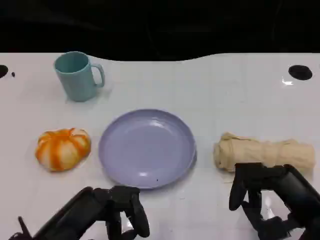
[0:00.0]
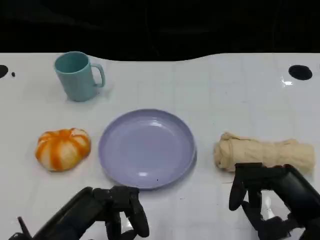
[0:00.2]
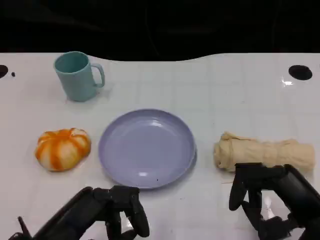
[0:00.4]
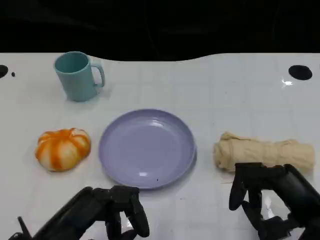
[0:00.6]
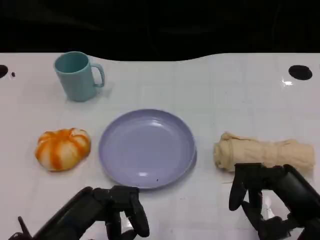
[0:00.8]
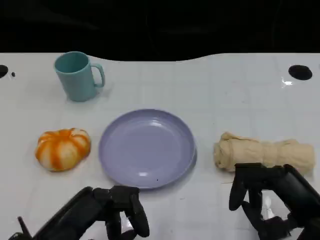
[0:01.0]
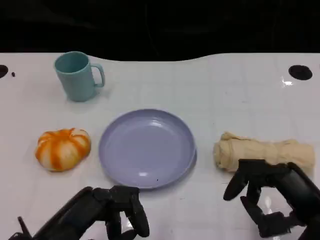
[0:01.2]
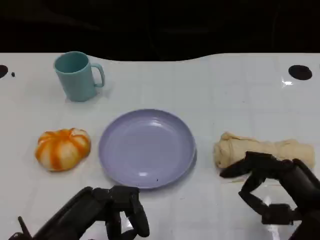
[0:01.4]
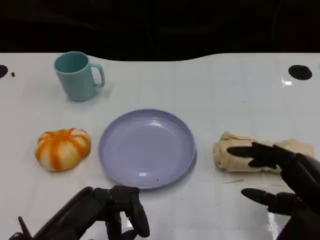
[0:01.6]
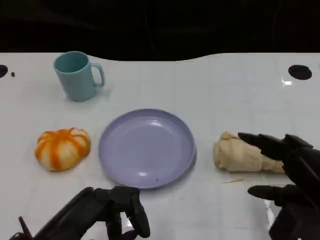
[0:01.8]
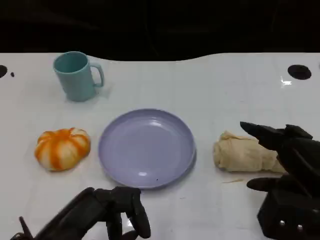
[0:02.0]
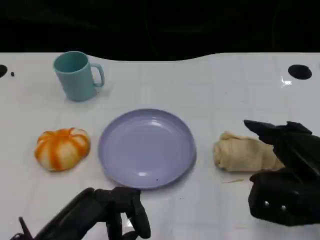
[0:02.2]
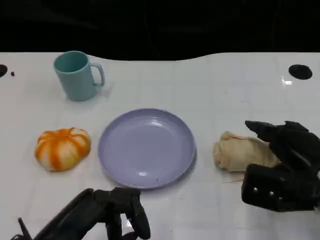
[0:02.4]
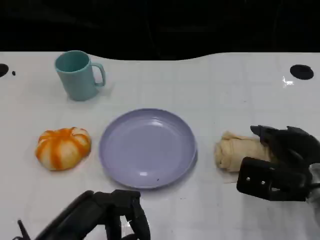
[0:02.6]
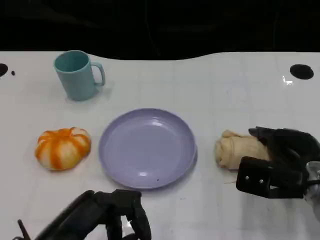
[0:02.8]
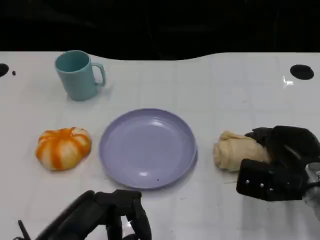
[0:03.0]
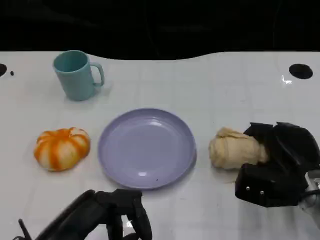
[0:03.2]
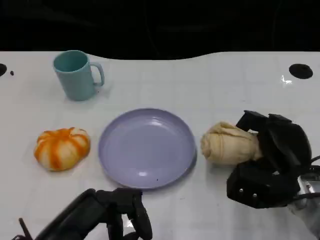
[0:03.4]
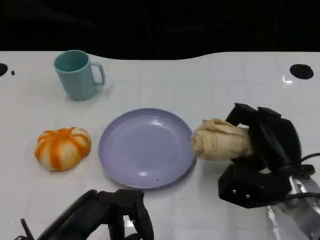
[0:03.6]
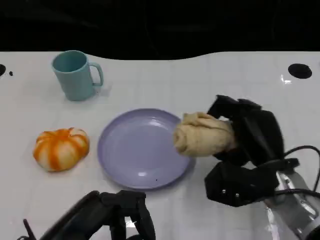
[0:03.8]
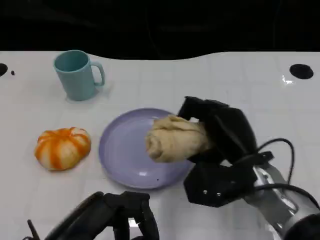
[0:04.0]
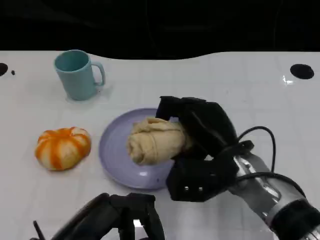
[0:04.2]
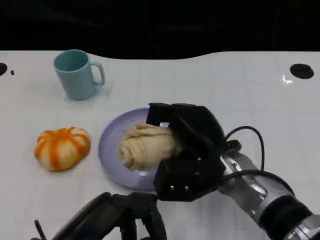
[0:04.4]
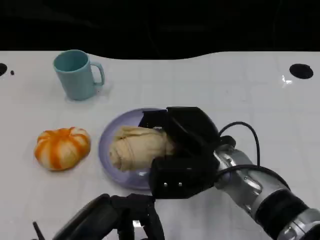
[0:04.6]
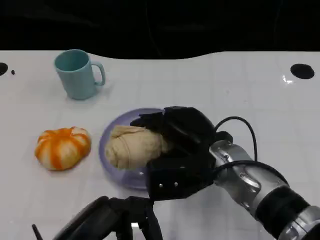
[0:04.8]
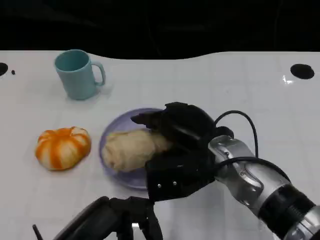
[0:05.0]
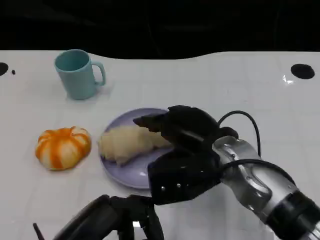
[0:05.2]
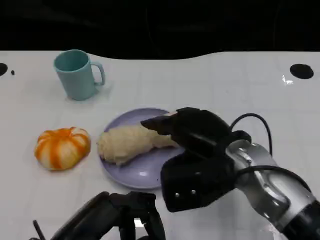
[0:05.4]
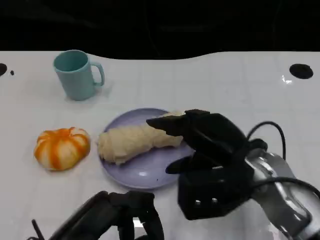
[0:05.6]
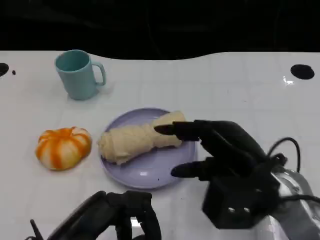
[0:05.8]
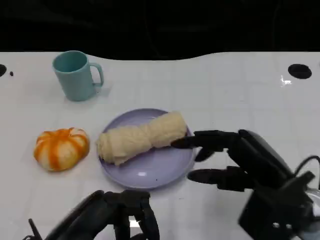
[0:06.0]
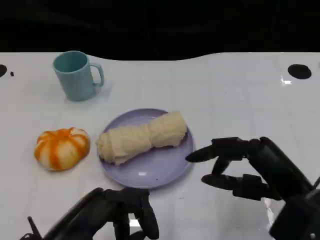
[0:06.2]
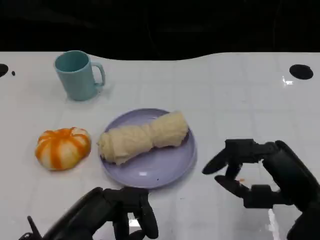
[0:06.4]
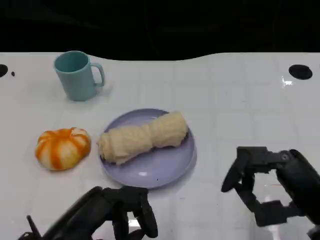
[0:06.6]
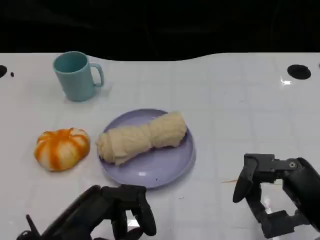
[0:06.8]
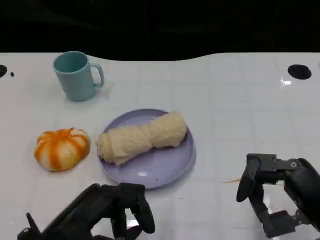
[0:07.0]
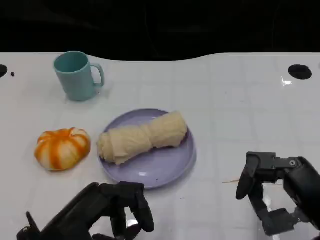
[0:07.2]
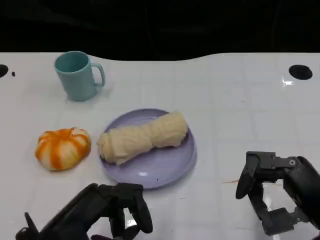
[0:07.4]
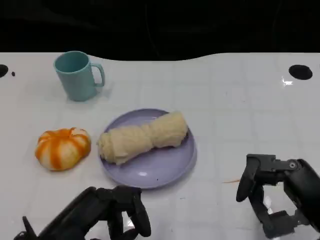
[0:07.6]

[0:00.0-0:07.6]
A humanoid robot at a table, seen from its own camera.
Task of the whole recording: Grasp the towel on the left side of the plate with the left hand and place it into the plate.
0:00.0 to 0:01.6: There are only small adjustments of the hands.
0:01.6 to 0:03.0: The right hand shifts roughly 10 cm forward and downward.
0:03.0 to 0:04.6: The right hand moves to the left, roughly 15 cm.
0:04.6 to 0:06.0: The right hand shifts approximately 15 cm to the right and backward.
0:06.0 to 0:07.6: The right hand shifts by approximately 5 cm.

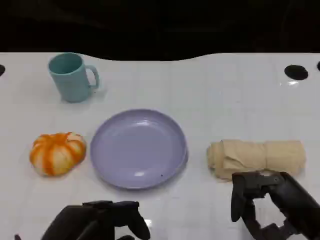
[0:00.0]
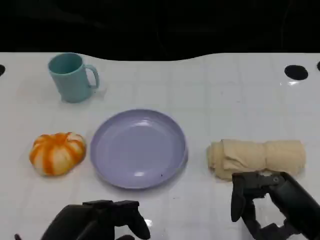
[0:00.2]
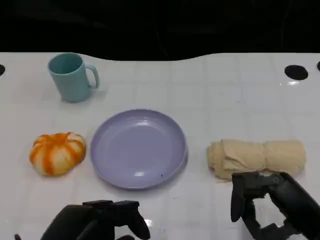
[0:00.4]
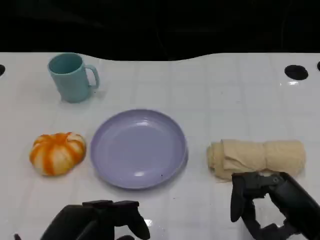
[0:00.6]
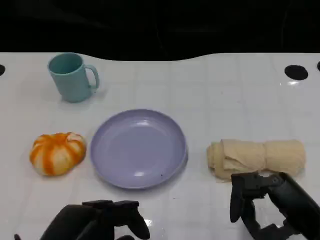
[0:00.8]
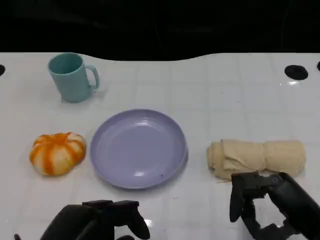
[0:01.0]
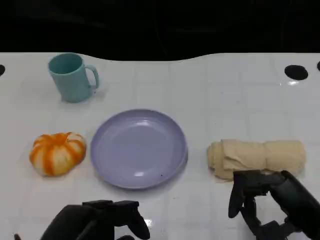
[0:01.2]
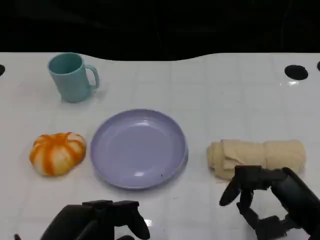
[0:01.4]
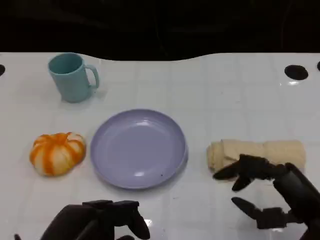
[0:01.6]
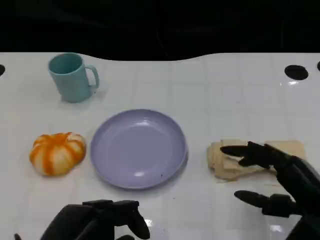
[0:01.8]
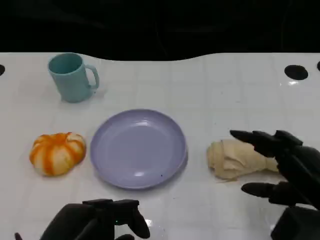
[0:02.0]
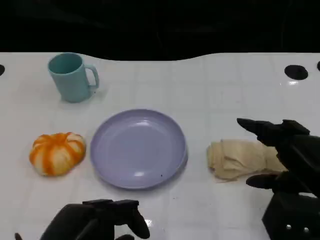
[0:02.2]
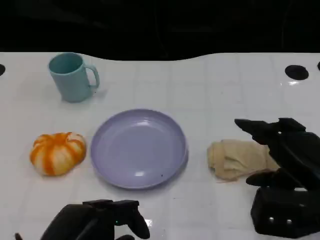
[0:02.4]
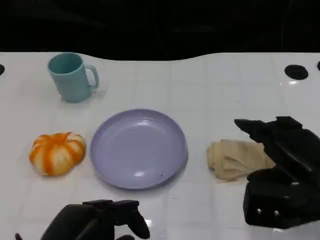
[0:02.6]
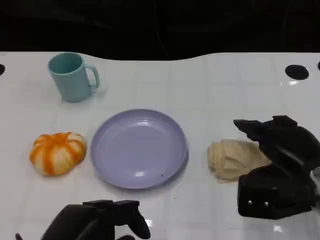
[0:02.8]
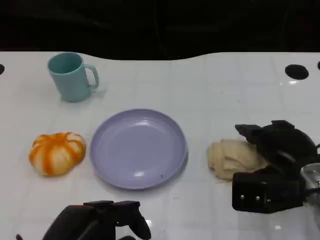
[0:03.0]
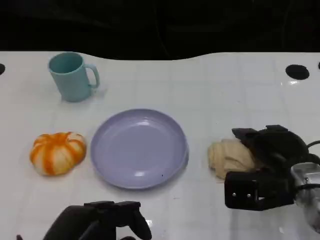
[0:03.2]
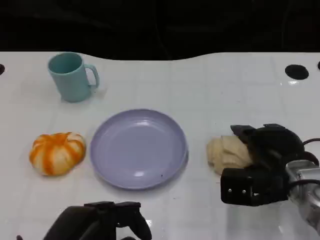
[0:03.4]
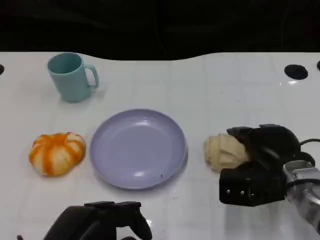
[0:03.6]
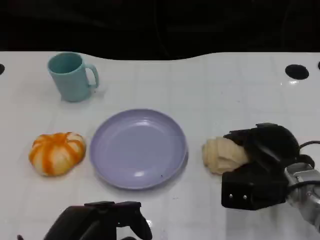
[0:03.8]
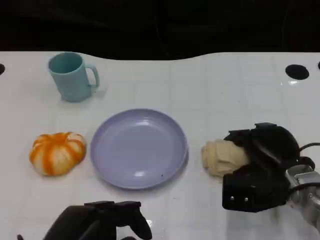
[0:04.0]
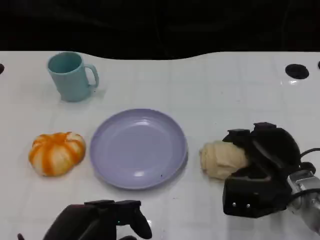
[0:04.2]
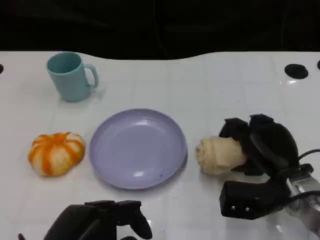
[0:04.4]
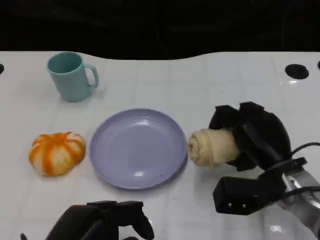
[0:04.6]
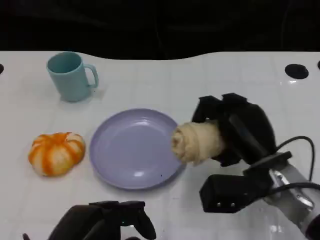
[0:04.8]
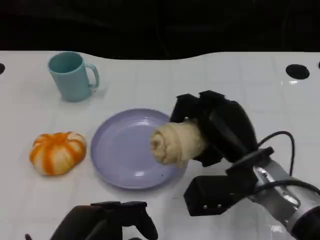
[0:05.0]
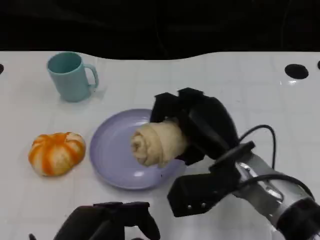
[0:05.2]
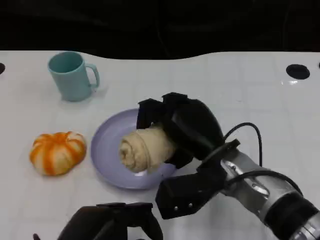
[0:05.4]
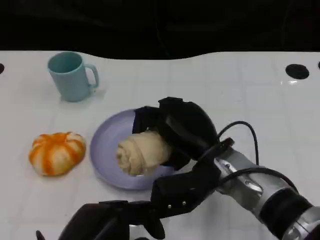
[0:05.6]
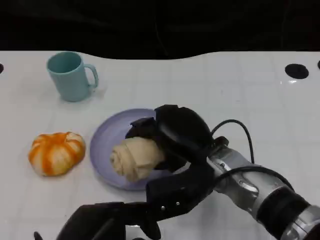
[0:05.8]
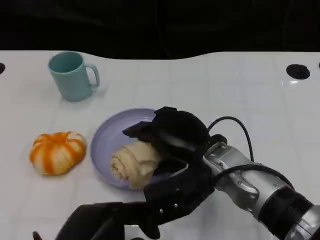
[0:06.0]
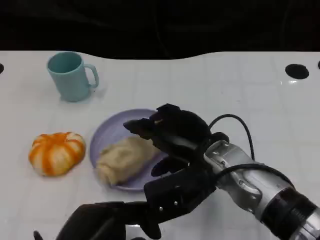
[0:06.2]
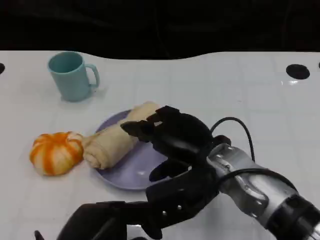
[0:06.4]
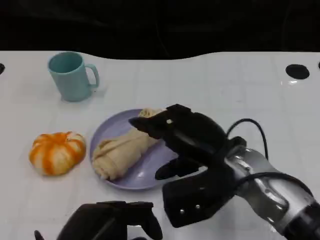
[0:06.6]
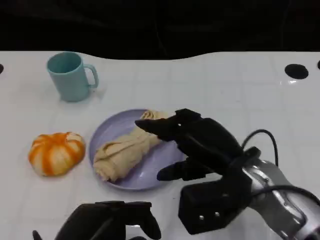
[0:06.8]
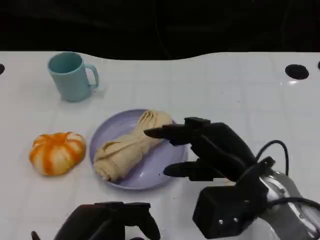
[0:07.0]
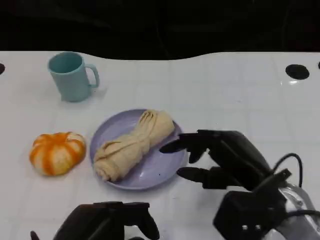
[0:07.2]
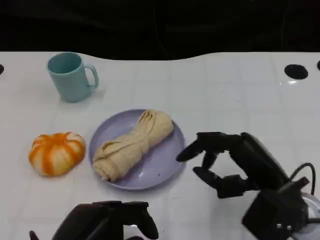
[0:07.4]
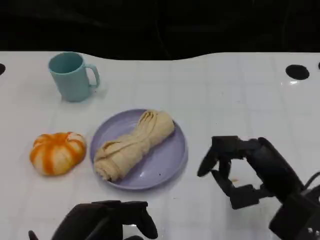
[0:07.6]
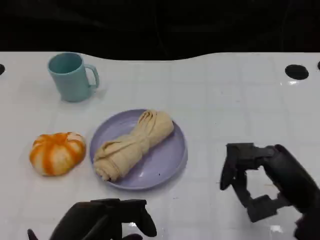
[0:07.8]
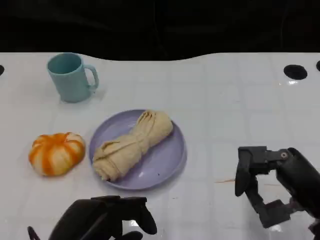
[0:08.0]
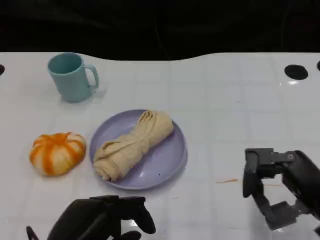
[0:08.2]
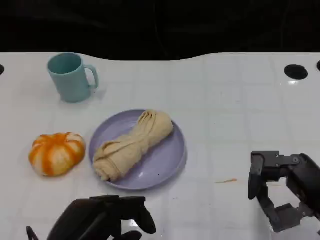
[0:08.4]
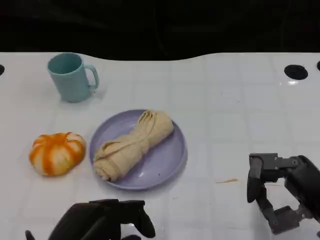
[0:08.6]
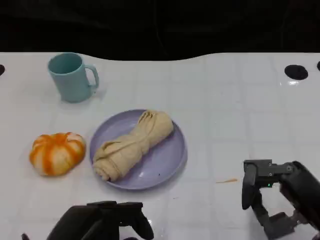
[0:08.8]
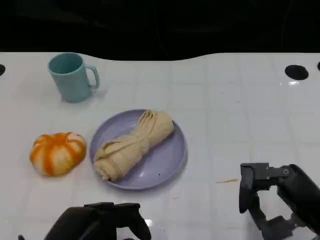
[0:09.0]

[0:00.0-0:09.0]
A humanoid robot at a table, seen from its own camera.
Task of the whole recording: Grasp the towel on the left side of the plate with the left hand and place it into the plate.
0:00.0 to 0:01.6: The hands stay close to where they were, moving slightly.
0:01.6 to 0:03.0: The right hand travels forward by roughly 10 cm.
0:04.4 to 0:06.0: The right hand shifts some 15 cm to the left and upward.
0:06.0 to 0:07.6: The right hand is displaced to the right and backward by some 15 cm.
0:07.6 to 0:09.0: The hands stay close to where they were, moving slightly.
